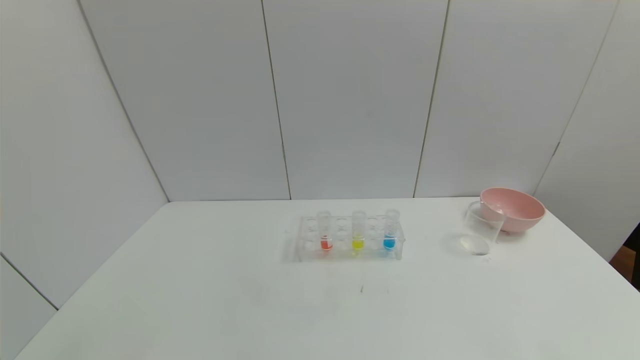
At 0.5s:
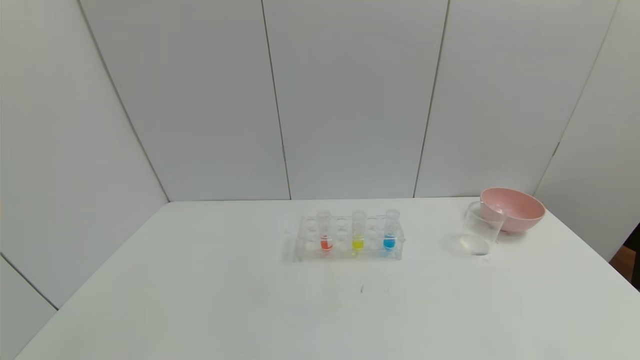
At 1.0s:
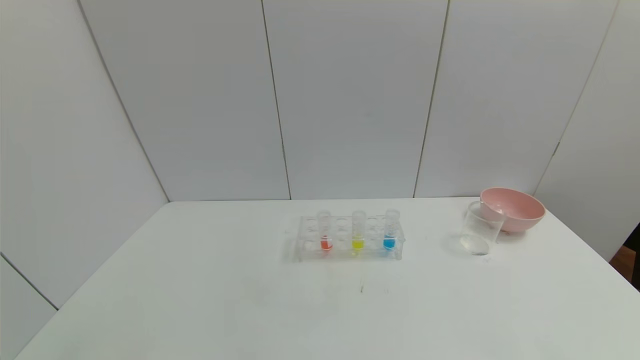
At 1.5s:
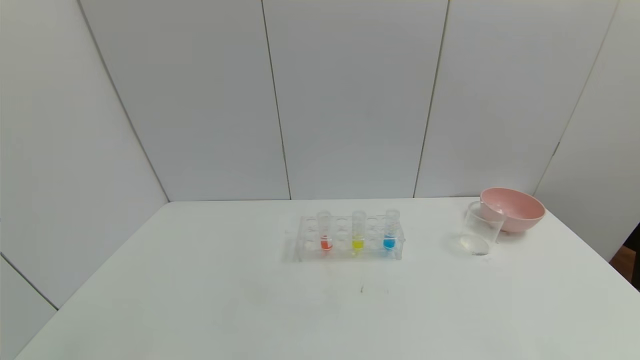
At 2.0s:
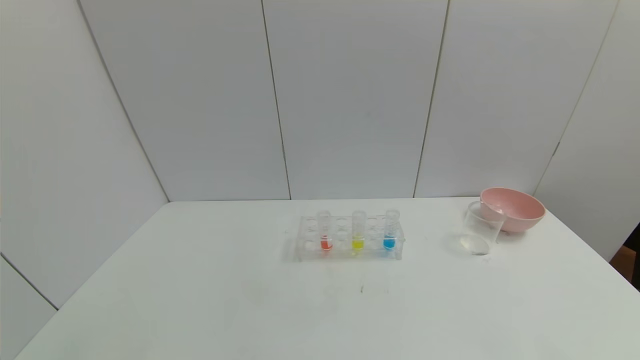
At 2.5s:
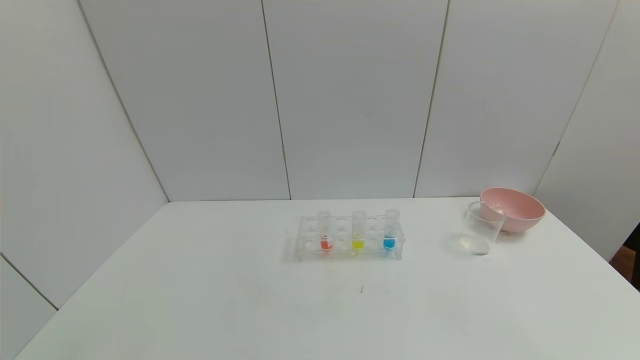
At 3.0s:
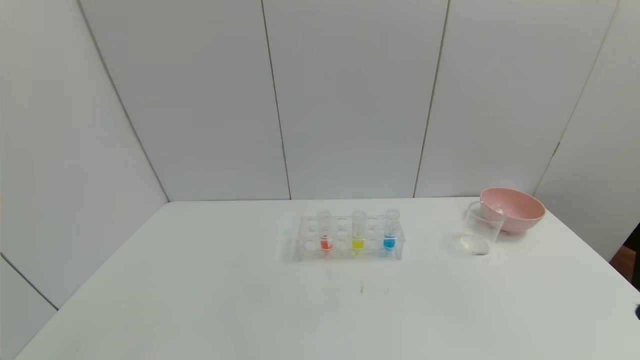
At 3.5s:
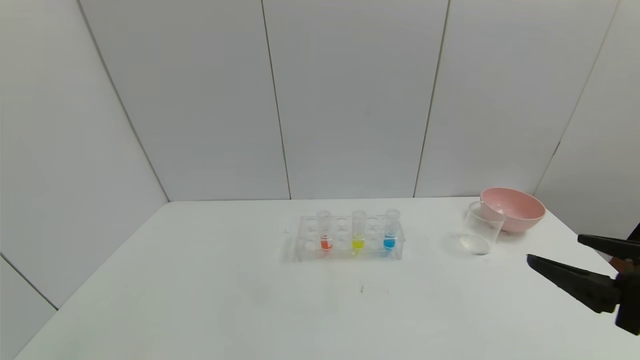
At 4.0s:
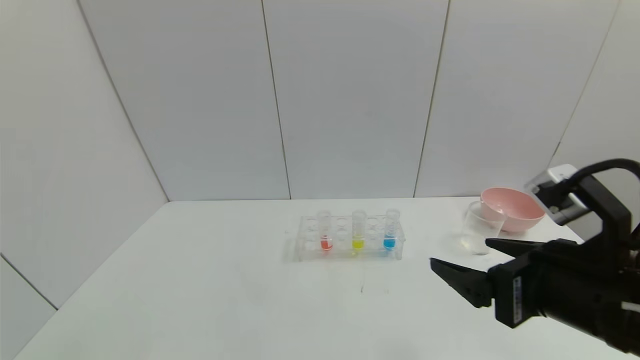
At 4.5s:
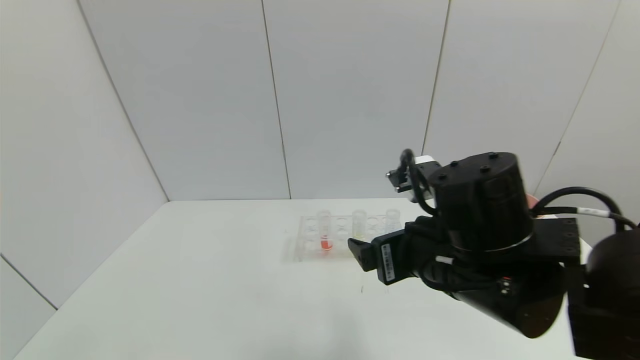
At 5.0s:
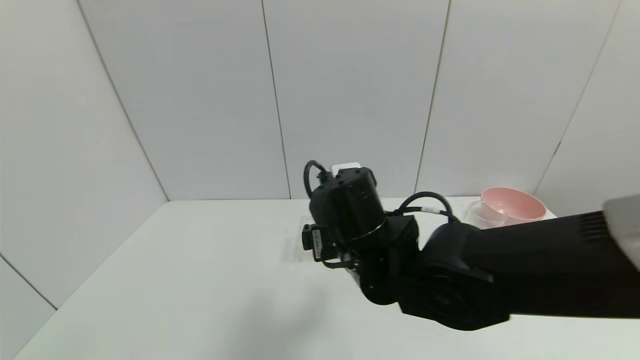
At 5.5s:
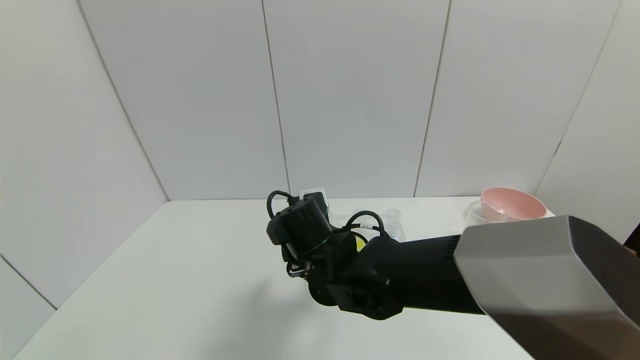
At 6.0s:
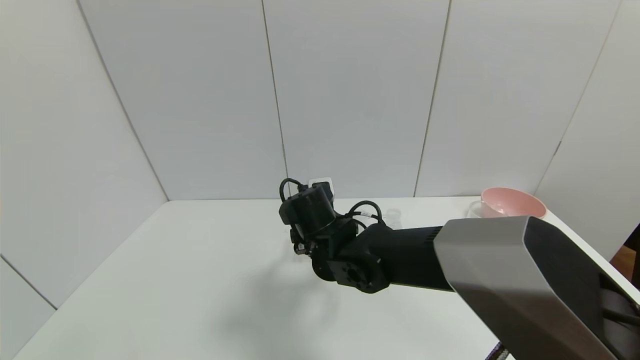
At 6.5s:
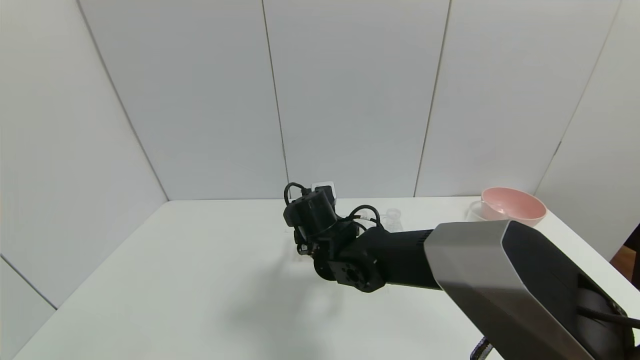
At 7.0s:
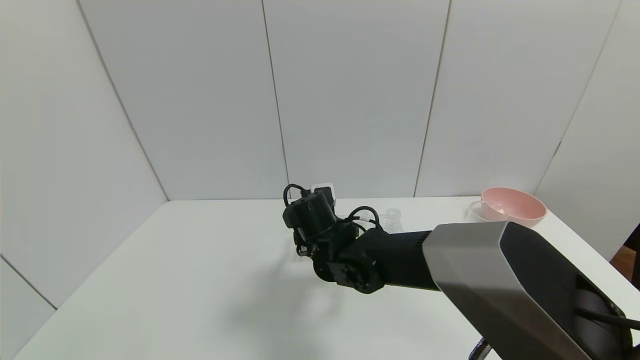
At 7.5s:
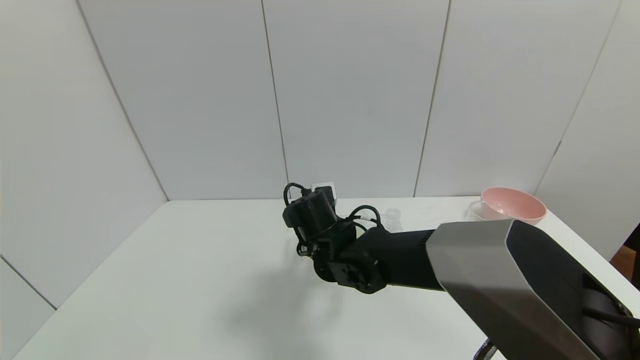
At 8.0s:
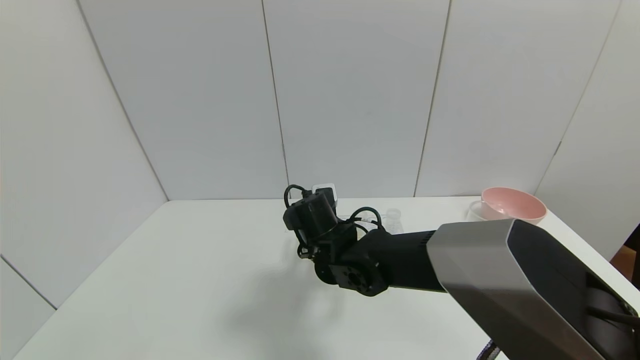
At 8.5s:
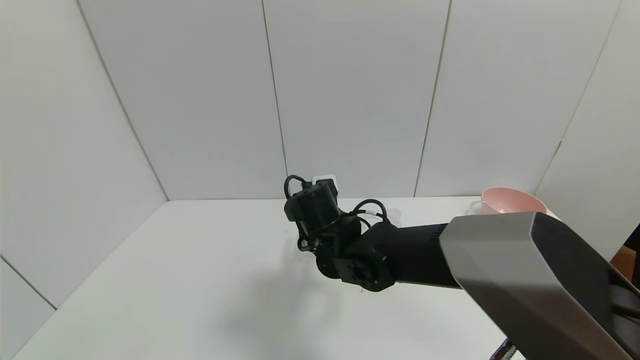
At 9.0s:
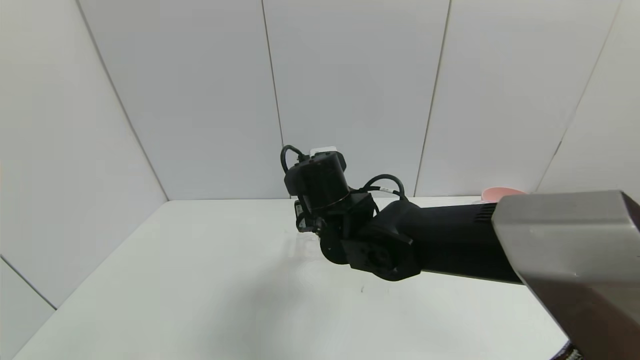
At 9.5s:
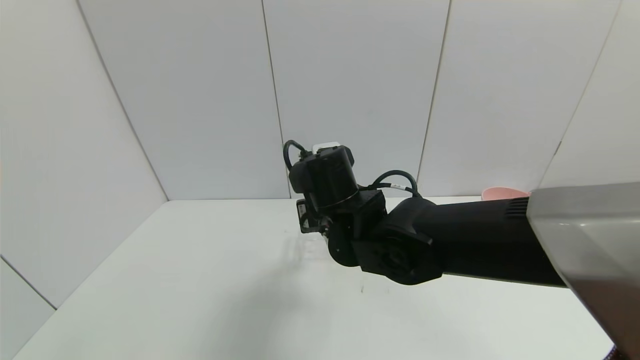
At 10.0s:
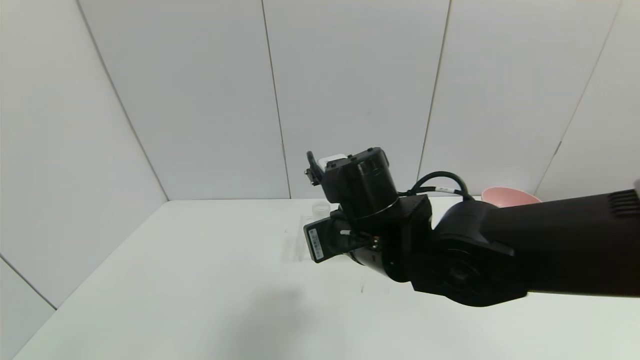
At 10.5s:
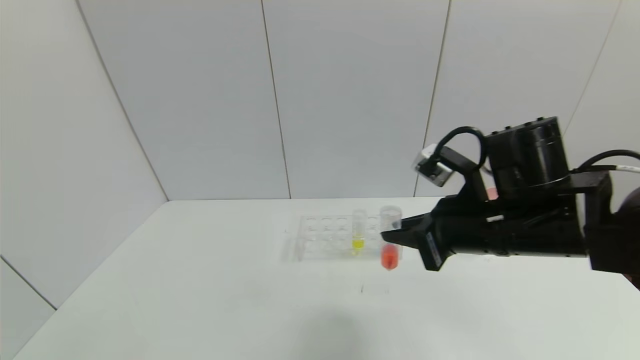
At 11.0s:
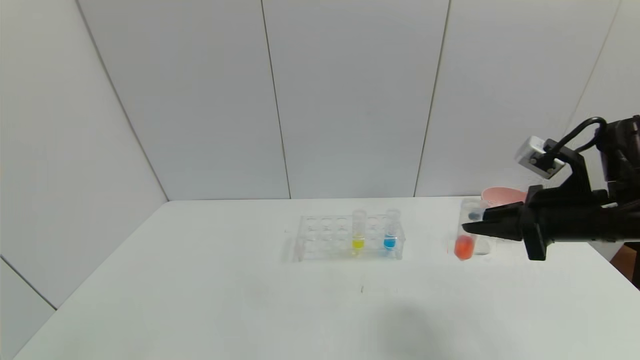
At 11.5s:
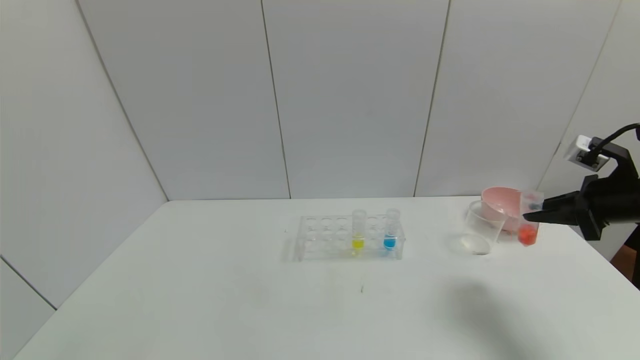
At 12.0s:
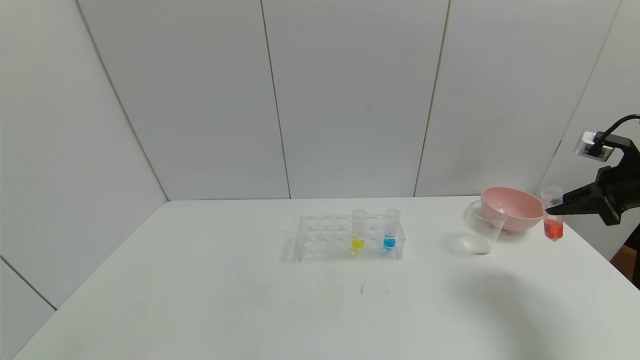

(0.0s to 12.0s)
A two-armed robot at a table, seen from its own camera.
Task of the whole recording: pick up the test tube with yellow pigment and the test tube with red pigment by grippers and pour them into the beaker.
Step, 0.0s - 8.0s: Grasp the red reagent with the right gripper.
0.0s - 2.0s: Both grippers stay about where they are.
2.0s - 4.0s: The right gripper heads forward, to the left and upward, covering approximately 30 cm.
4.0s - 6.0s: The right gripper shifts about 30 cm to the left, forward and downward.
6.0s - 8.0s: The right gripper closes up.
8.0s - 10.0s: The right gripper goes approximately 15 cm upward, backward and to the right.
10.0s - 12.0s: The right gripper goes approximately 40 cm to the right.

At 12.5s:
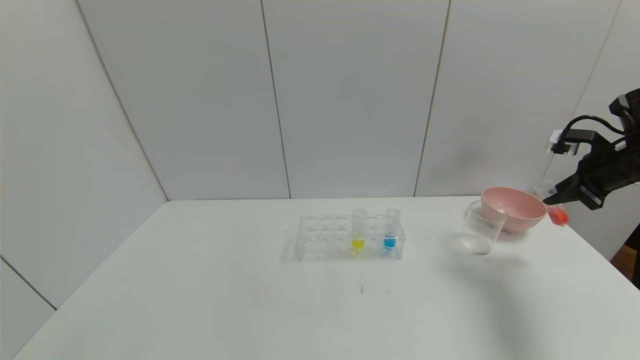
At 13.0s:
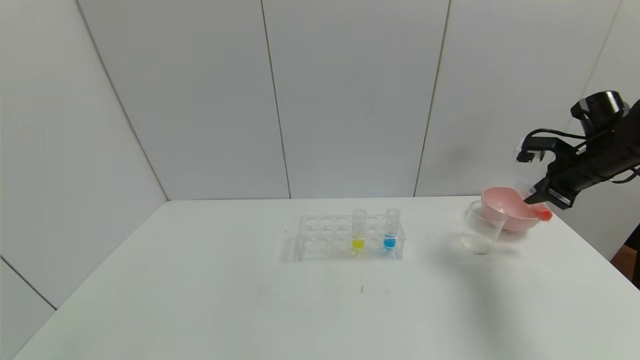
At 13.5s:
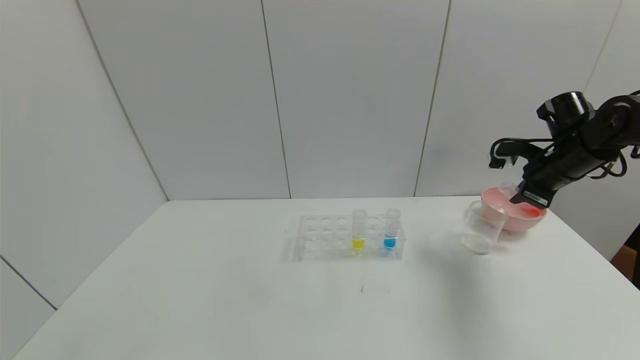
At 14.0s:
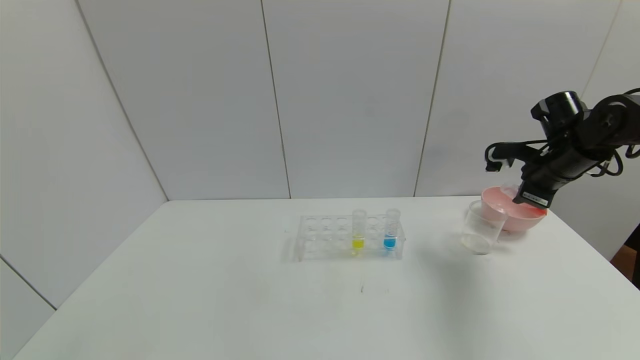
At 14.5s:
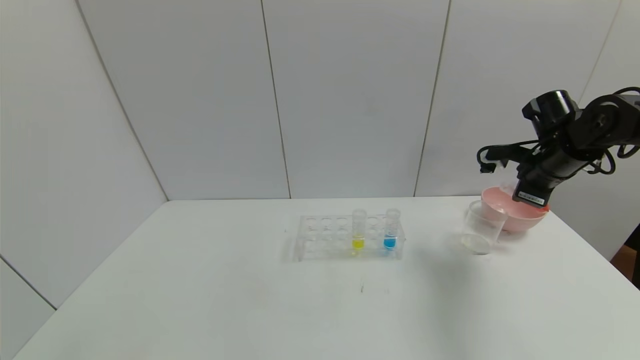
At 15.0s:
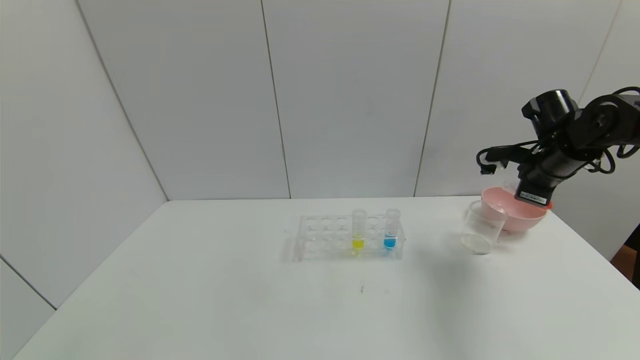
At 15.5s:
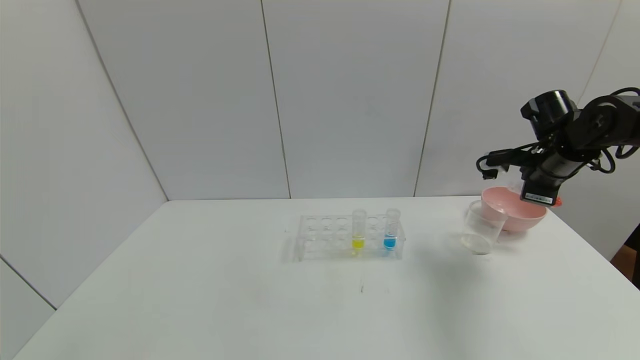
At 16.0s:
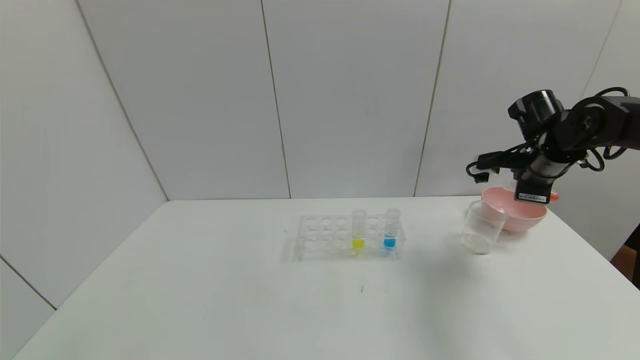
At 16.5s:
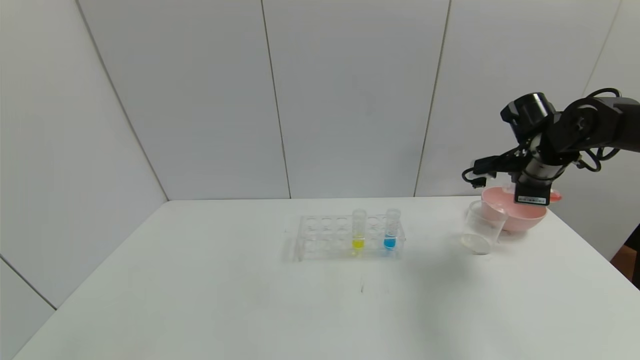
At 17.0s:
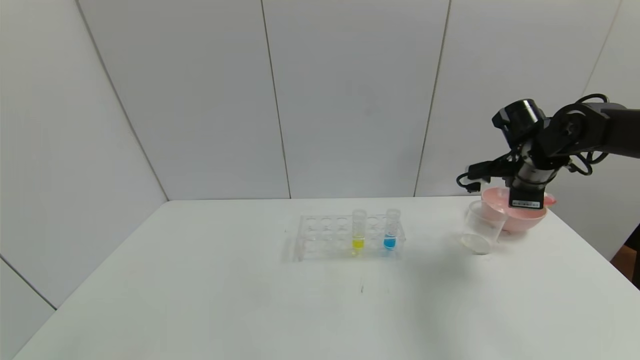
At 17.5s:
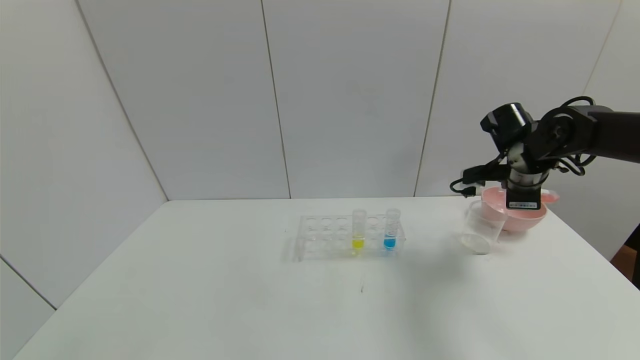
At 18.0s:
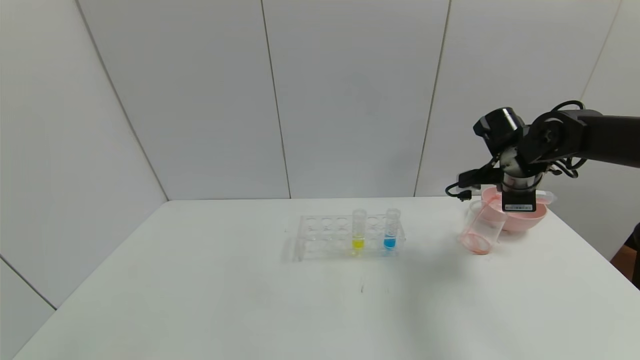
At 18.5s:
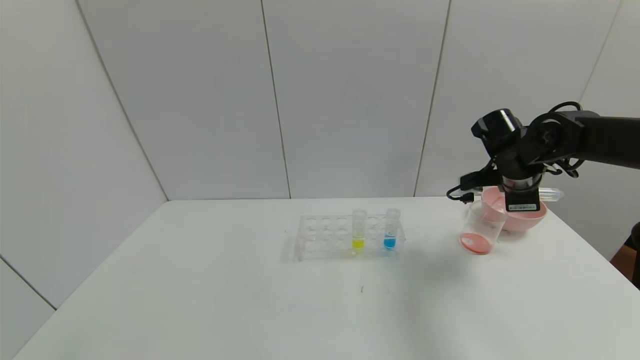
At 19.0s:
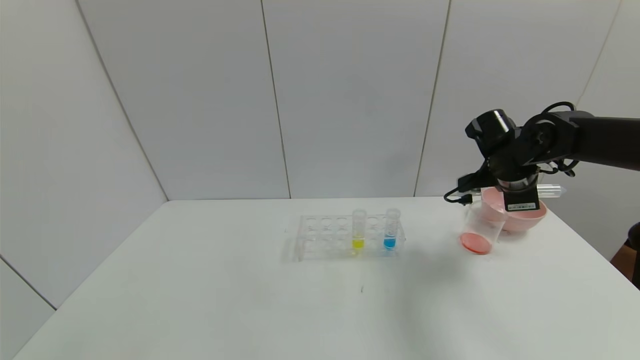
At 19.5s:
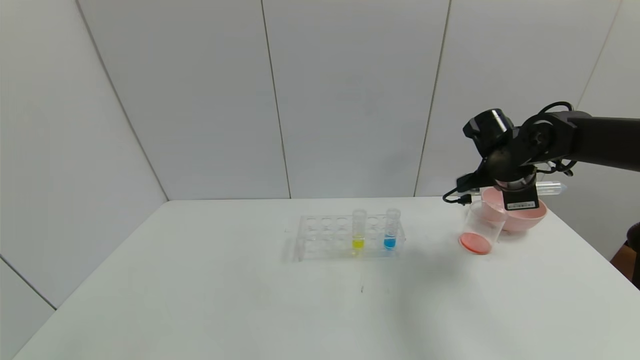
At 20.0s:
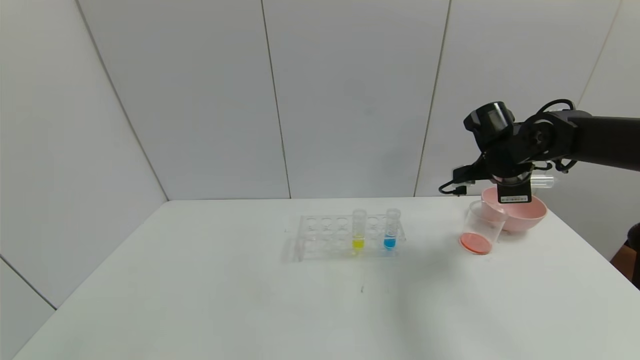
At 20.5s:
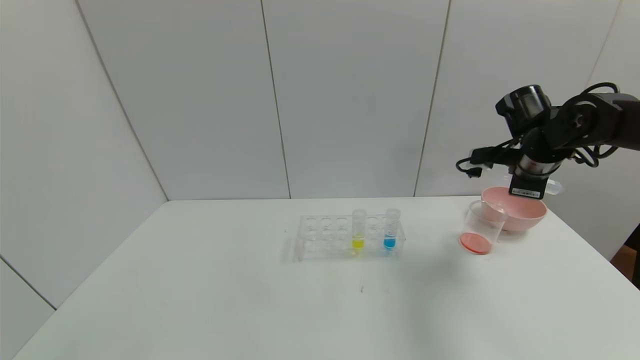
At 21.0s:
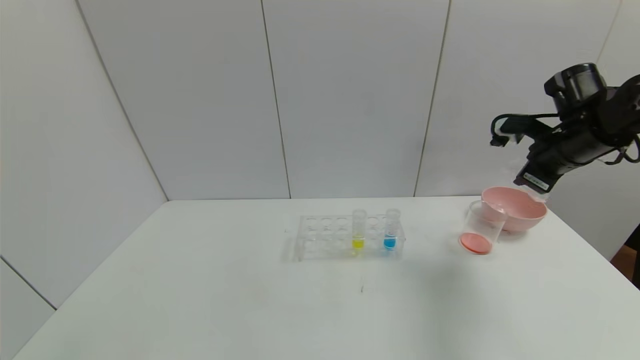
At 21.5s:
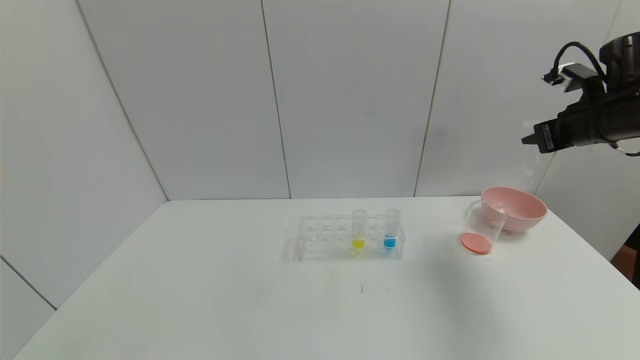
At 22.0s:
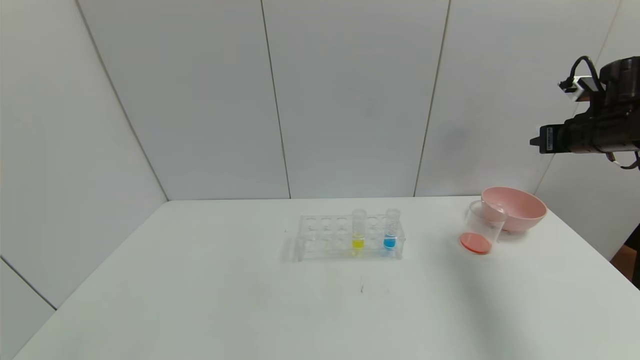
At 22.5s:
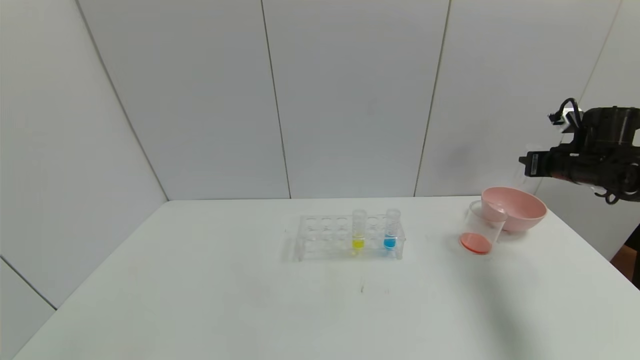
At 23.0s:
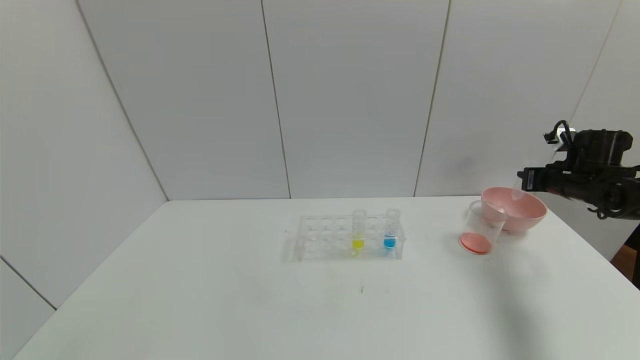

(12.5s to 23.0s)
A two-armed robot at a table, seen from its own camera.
Task of the whole recording: pick up the test tube with yellow pigment and the test tube with red pigment by grippers and pour them into the beaker.
Step, 12.5s - 19.0s: Pour the red reagent into the graduated cylinder with the right gripper.
12.5s - 14.5s: The right gripper travels to the left by some 10 cm.
14.5s - 16.5s: There are only small adjustments of the grippers.
16.5s - 19.0s: There are only small adjustments of the grippers.
19.0s - 21.0s: The right gripper heads to the right and upward, covering about 10 cm.
21.0s - 23.0s: The right gripper shifts about 15 cm downward and to the right.
